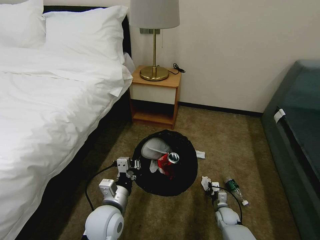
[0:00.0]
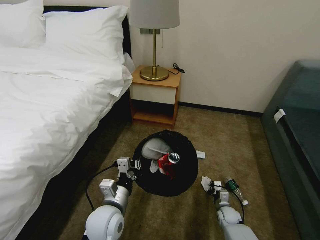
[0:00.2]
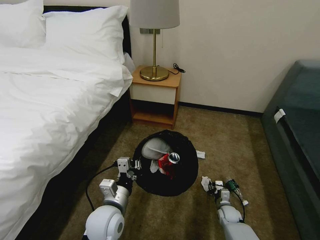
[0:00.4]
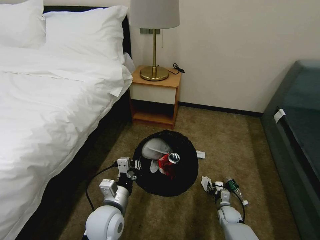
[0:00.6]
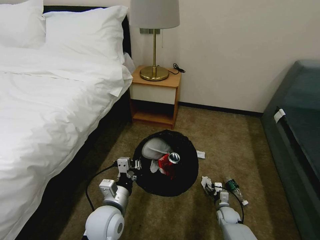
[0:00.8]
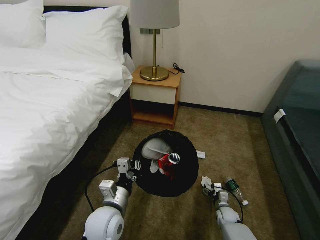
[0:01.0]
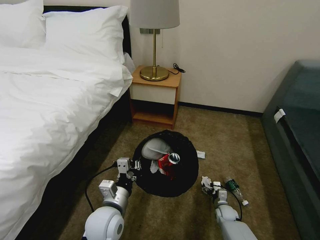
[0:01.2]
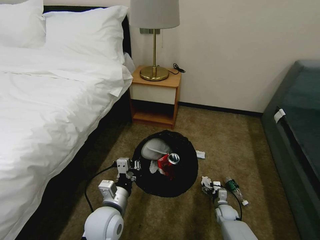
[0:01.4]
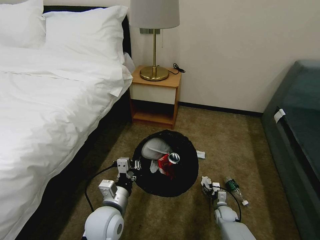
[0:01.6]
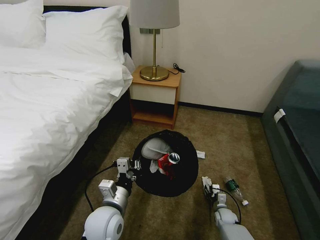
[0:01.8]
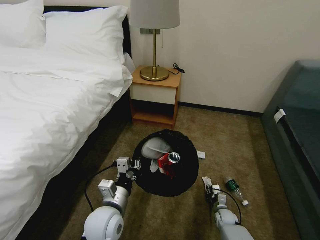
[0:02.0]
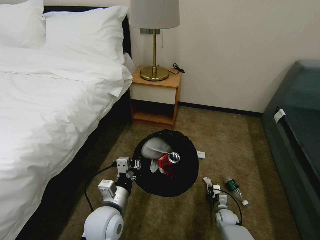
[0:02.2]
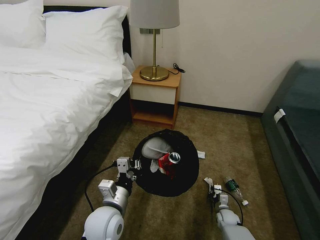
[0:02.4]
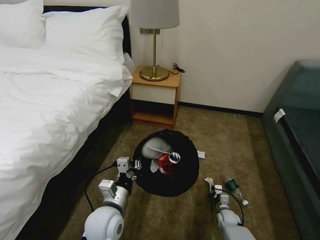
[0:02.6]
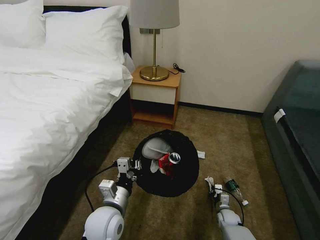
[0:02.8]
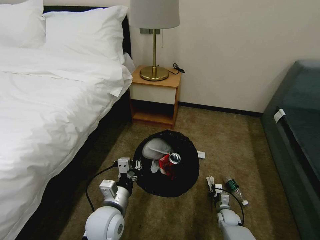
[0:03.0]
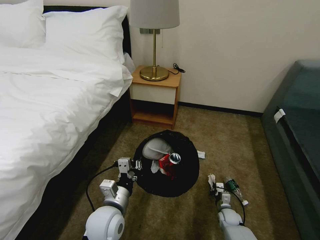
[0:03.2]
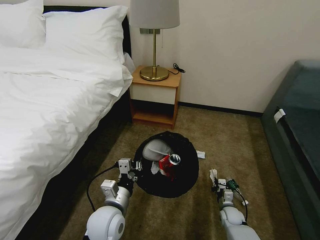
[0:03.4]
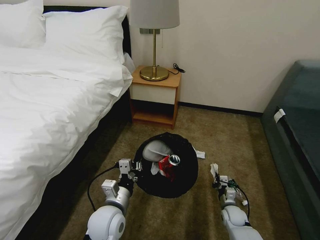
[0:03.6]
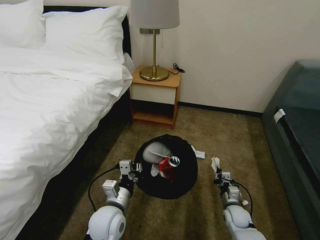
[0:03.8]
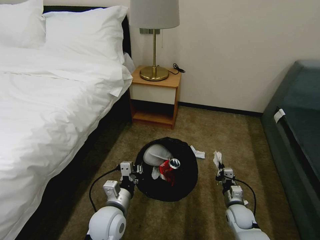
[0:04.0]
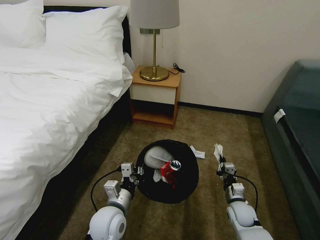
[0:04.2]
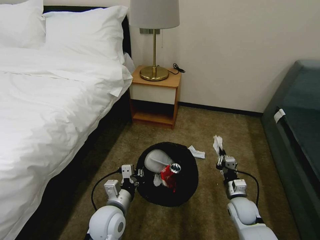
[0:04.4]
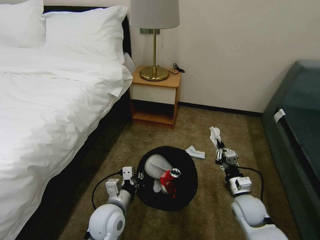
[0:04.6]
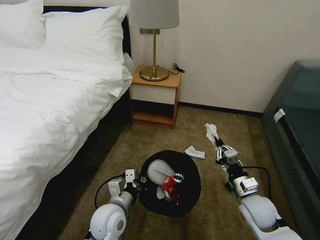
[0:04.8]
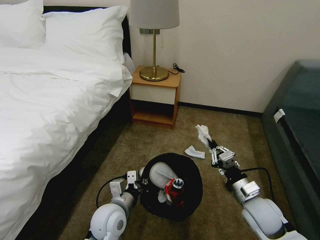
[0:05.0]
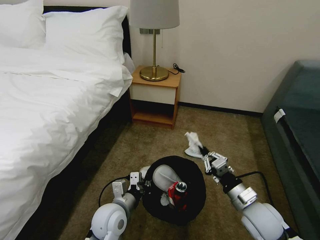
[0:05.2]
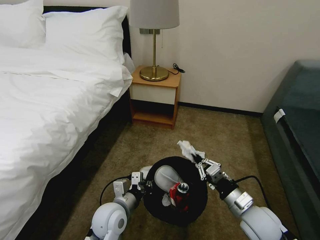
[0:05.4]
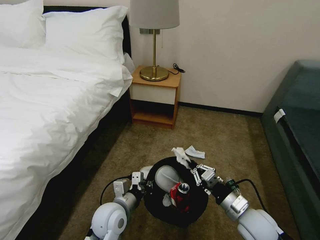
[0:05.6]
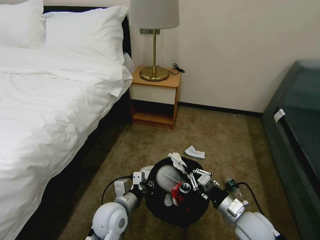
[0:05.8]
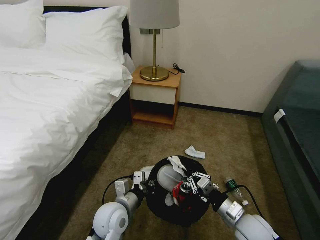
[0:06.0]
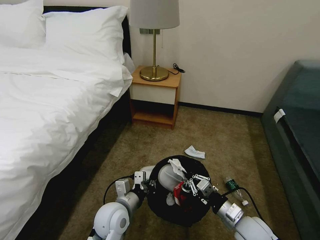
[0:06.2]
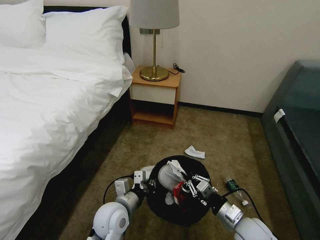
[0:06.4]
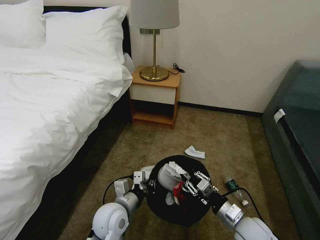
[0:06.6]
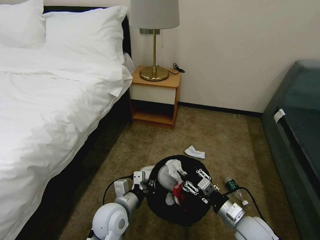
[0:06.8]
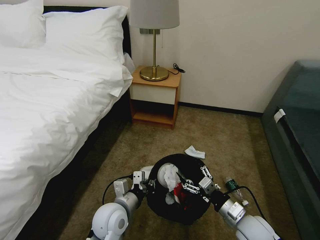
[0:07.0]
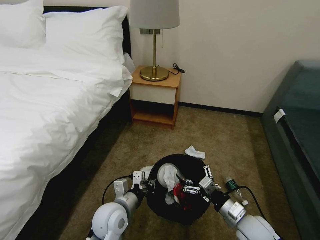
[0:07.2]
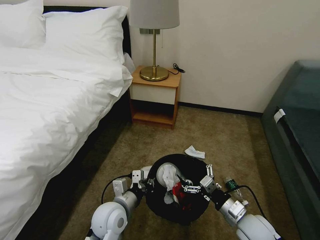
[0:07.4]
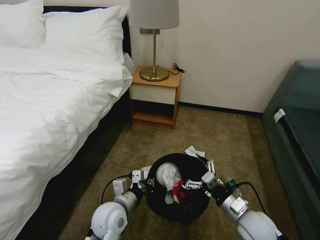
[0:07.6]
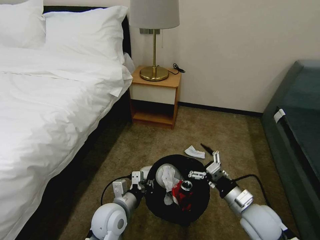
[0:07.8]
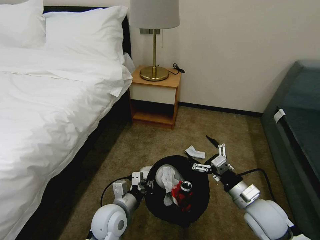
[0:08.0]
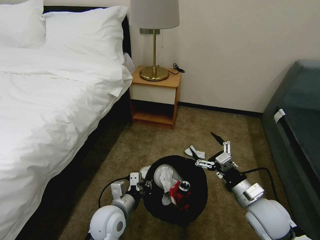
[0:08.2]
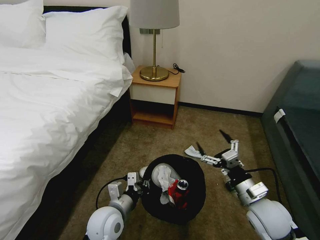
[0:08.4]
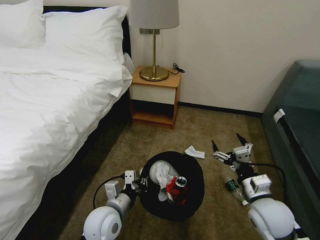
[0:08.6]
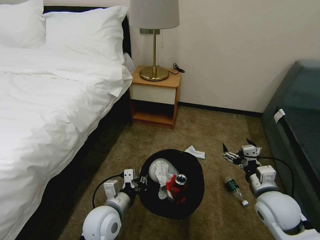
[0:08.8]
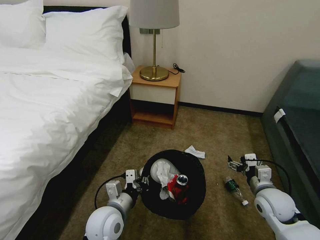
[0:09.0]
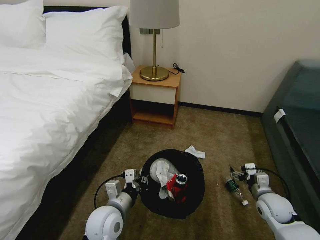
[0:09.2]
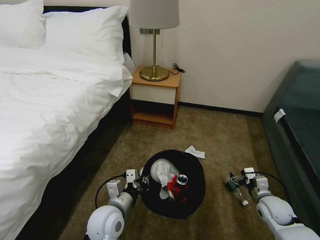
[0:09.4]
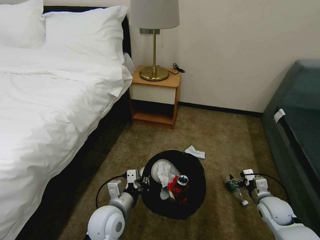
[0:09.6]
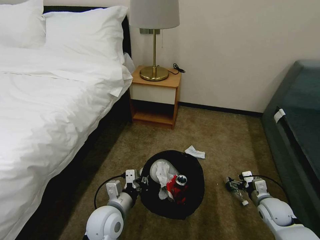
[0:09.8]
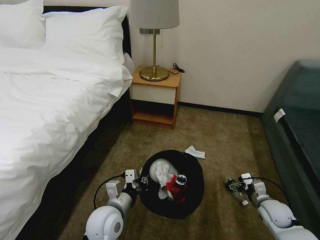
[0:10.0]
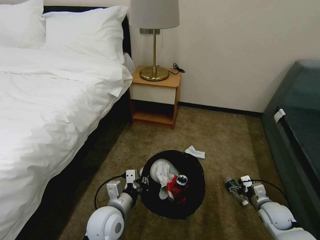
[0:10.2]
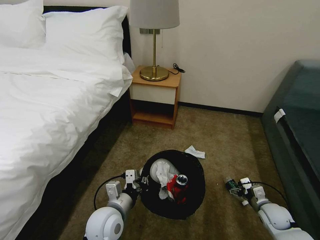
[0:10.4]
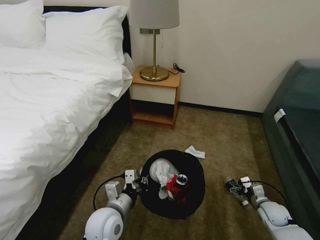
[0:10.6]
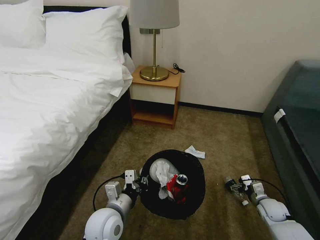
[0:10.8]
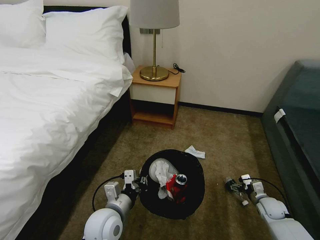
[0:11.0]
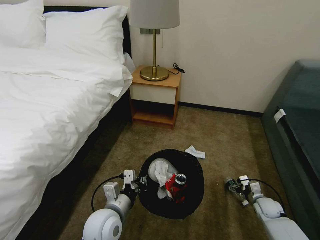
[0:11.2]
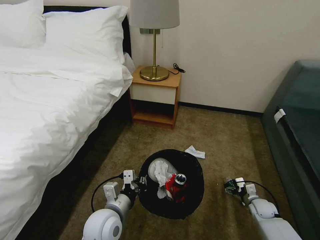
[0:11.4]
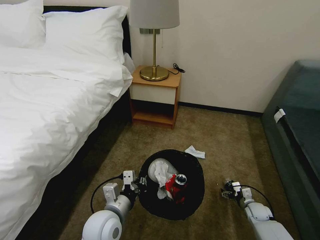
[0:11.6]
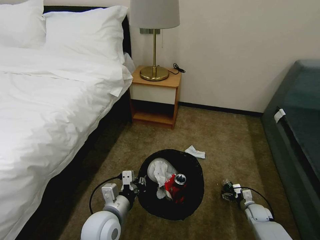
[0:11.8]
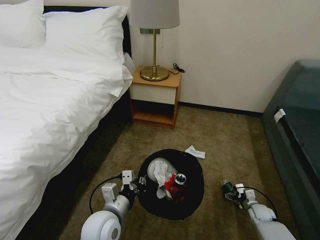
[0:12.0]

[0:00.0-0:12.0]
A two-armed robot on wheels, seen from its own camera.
Task of the whole recording: Pick up the trash bin, then pick up the garbage on the floor and place it into the trash bin.
0:00.0 to 0:01.6: The right gripper opens its fingers.
0:01.6 to 0:03.0: The right gripper closes.
0:03.0 to 0:04.4: The right gripper travels upward by roughly 20 cm.
0:04.4 to 0:06.0: The right gripper travels backward and upward by about 10 cm.
0:06.0 to 0:07.6: The right gripper opens.
0:07.6 to 0:09.0: The right gripper moves to the right and forward, approximately 10 cm.
0:09.0 to 0:10.4: The right gripper is displaced downward and to the right by approximately 15 cm.
0:10.4 to 0:12.0: The right gripper travels downward by approximately 10 cm.

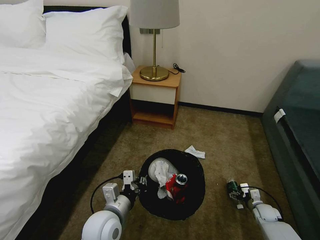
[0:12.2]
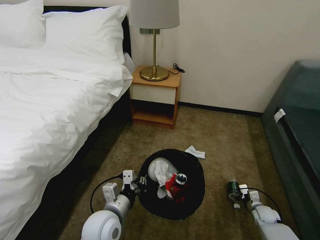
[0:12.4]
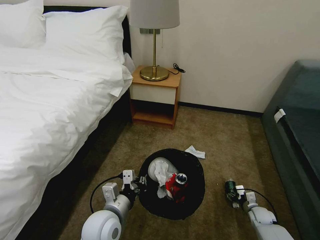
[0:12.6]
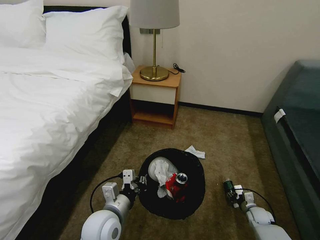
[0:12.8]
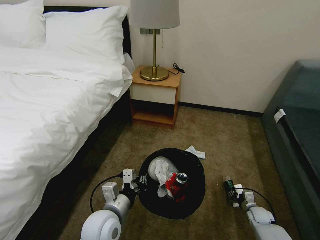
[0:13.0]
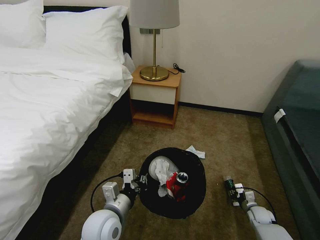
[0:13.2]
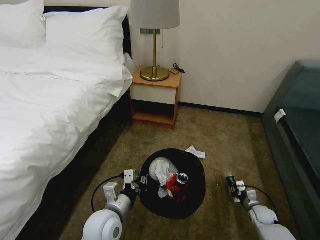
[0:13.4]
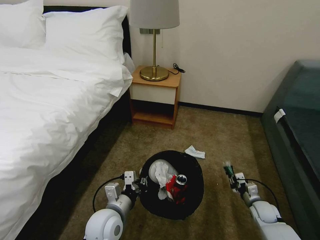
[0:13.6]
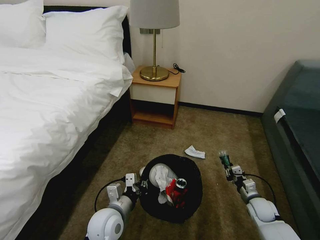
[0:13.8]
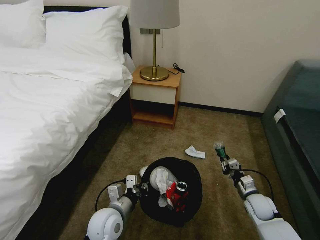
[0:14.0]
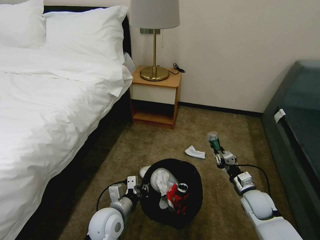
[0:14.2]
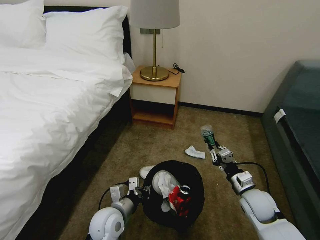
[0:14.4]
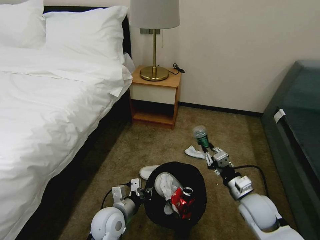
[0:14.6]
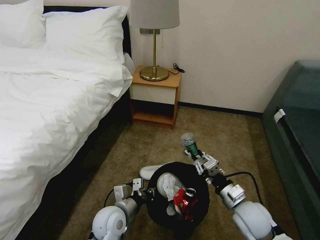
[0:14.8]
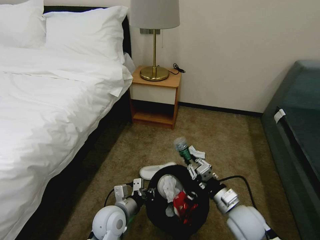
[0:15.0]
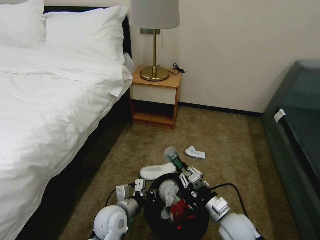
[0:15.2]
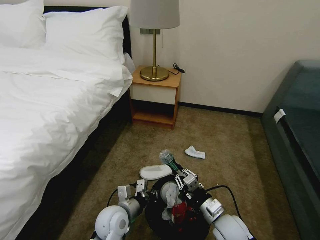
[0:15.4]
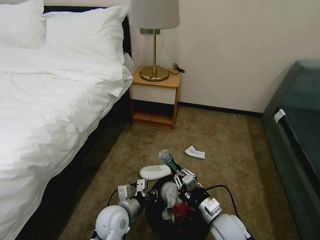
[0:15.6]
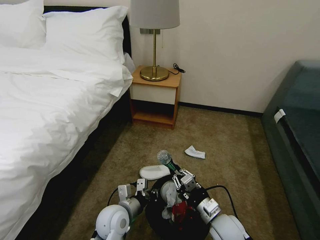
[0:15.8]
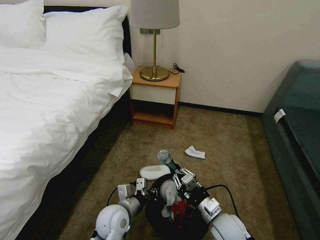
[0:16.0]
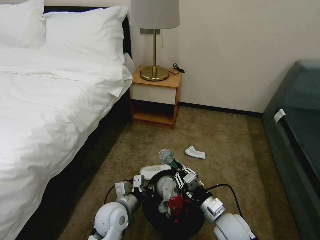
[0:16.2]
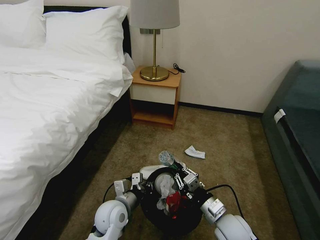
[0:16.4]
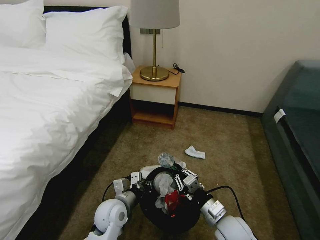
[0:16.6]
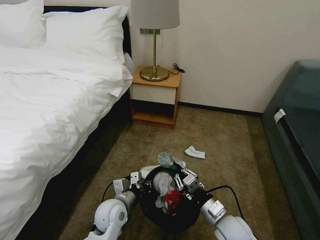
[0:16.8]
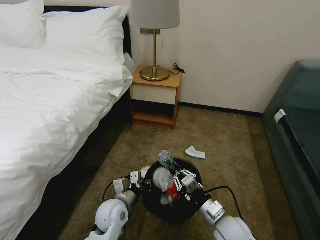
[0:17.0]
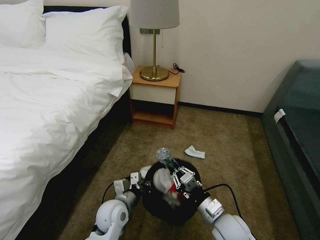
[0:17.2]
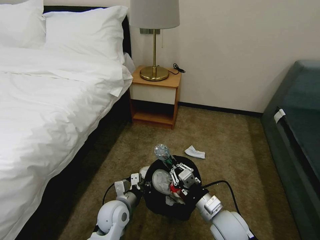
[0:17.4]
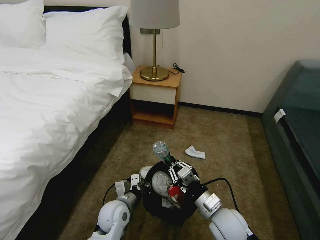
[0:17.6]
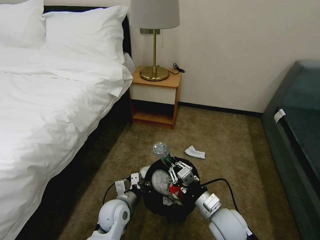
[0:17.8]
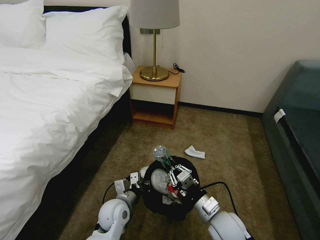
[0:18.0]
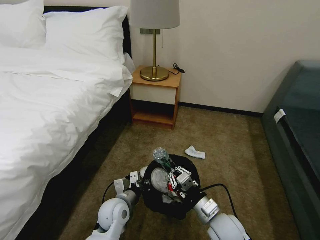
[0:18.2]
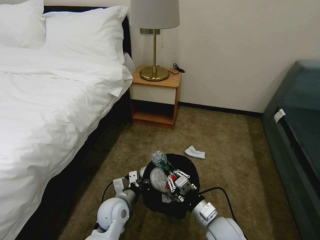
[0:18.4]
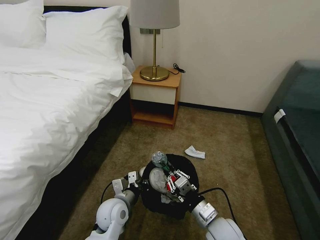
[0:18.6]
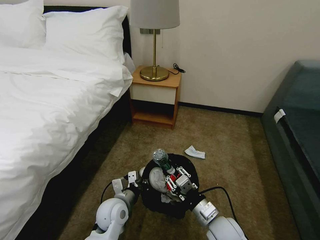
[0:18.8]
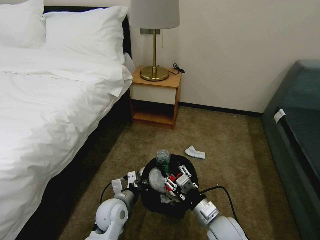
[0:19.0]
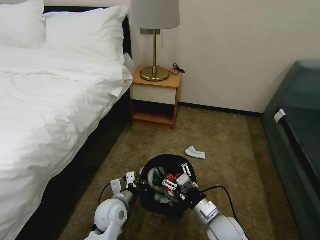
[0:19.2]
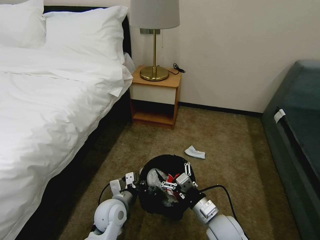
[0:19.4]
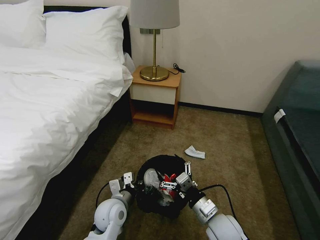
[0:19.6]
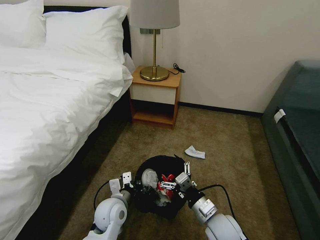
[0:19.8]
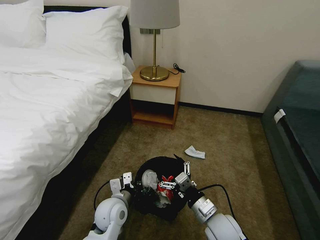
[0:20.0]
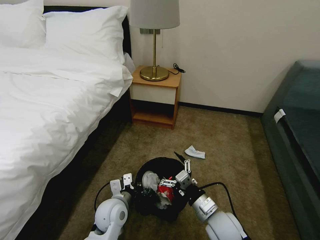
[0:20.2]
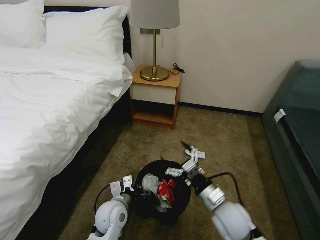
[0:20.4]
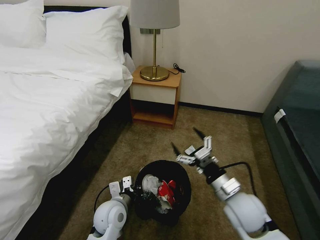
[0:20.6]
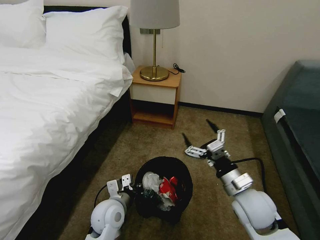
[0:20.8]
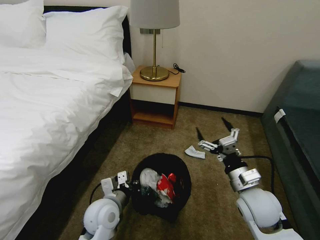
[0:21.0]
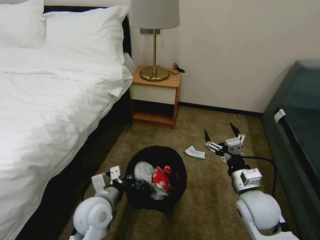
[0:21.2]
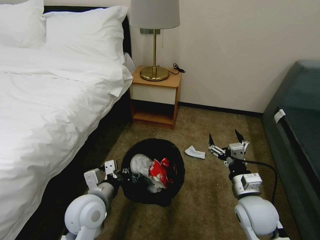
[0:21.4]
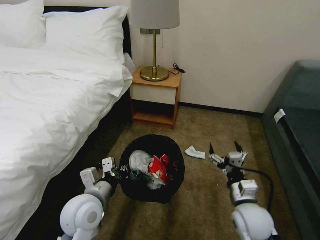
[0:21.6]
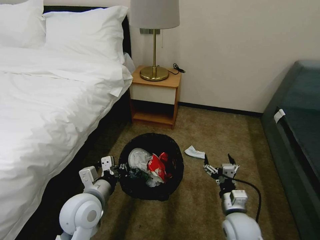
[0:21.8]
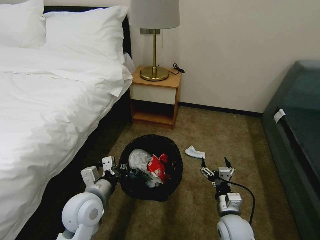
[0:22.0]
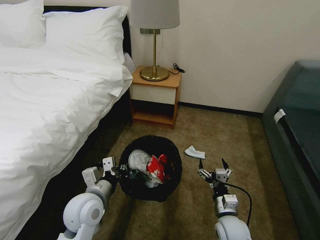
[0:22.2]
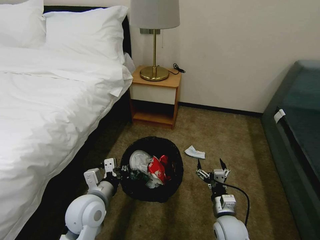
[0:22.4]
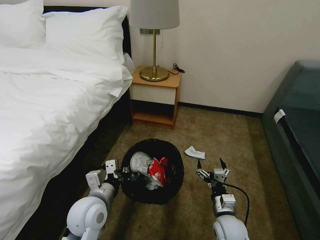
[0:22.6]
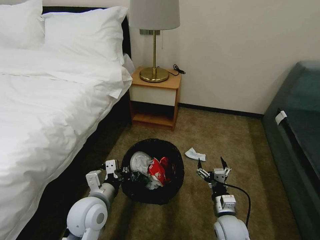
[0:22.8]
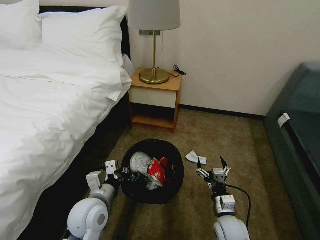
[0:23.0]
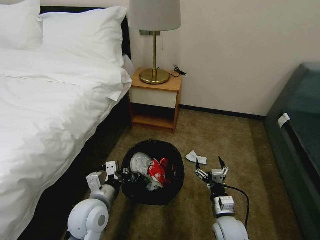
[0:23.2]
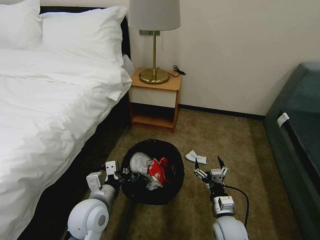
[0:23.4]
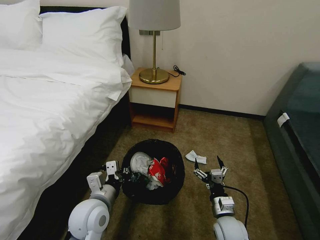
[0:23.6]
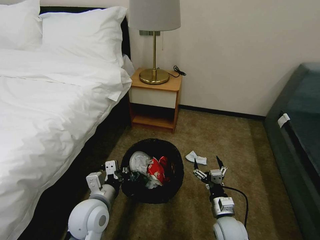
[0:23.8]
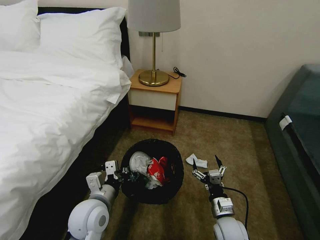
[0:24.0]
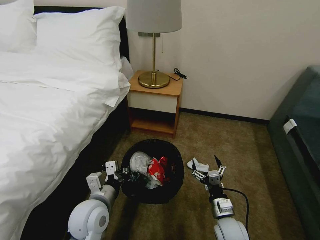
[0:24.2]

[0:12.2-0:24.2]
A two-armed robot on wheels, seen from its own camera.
Task of the whole recording: Pick up the trash bin, then pick up the garbage on the floor and place it into the trash bin.
0:12.2 to 0:13.8: The right gripper moves upward and to the left, approximately 10 cm, and closes its fingers.
0:13.8 to 0:15.2: The right gripper goes roughly 20 cm to the left, upward and backward.
0:15.2 to 0:18.2: The grippers make only small movements.
0:18.2 to 0:19.8: The right gripper opens up.
0:19.8 to 0:21.2: The right gripper moves upward and to the right, about 10 cm. The left gripper travels upward by about 5 cm.
0:21.2 to 0:22.6: The right gripper shifts approximately 15 cm downward.
0:22.6 to 0:24.2: The grippers stay close to where they were, moving slightly.
